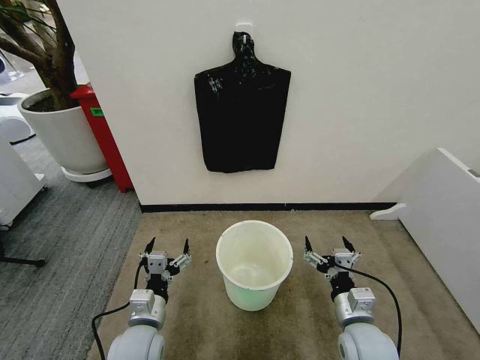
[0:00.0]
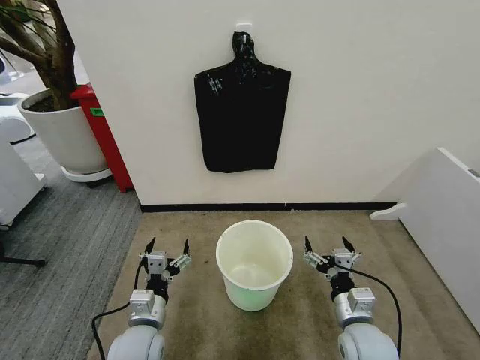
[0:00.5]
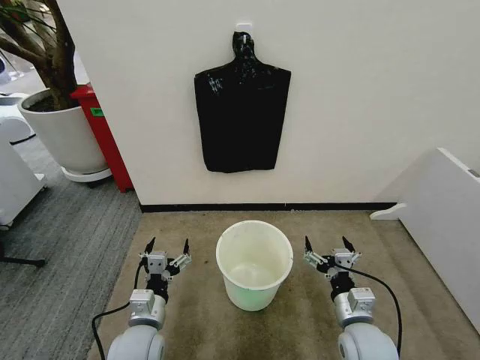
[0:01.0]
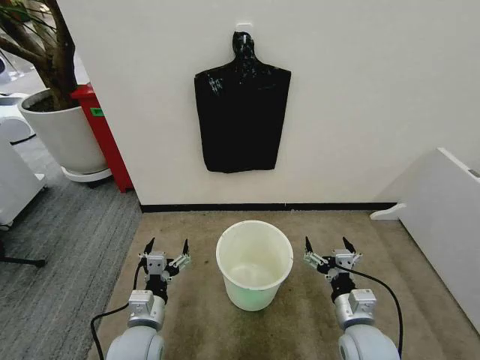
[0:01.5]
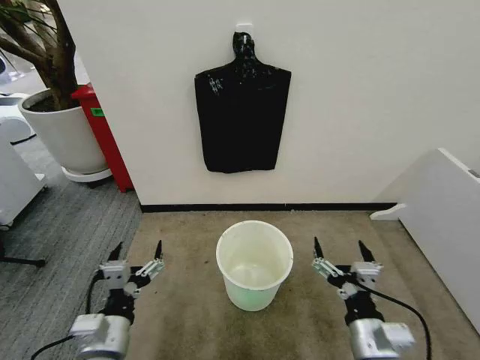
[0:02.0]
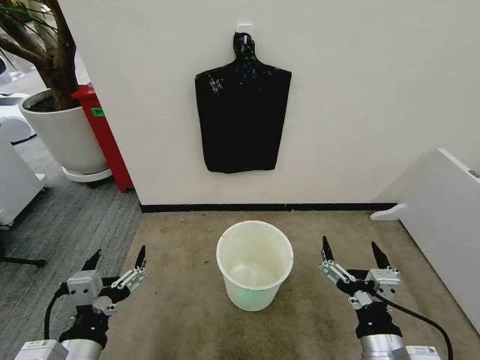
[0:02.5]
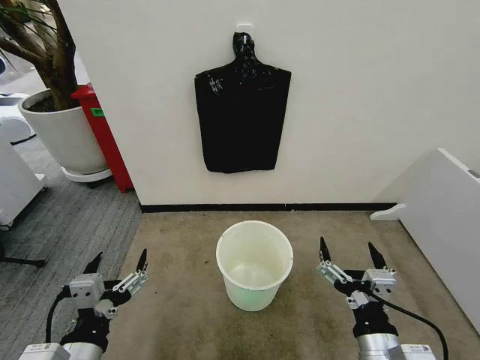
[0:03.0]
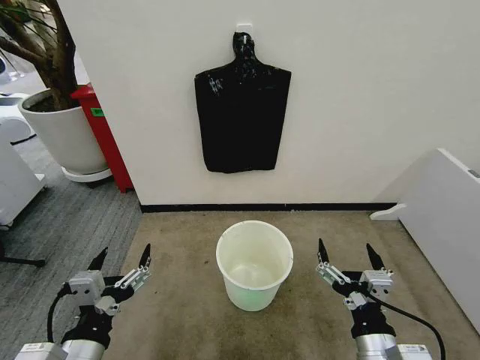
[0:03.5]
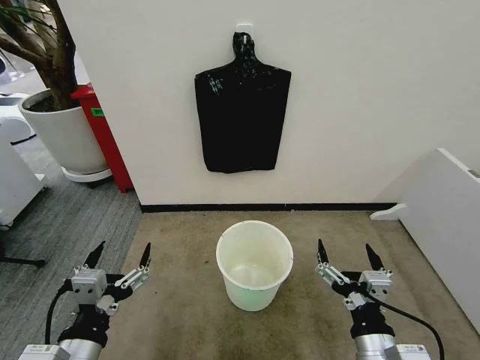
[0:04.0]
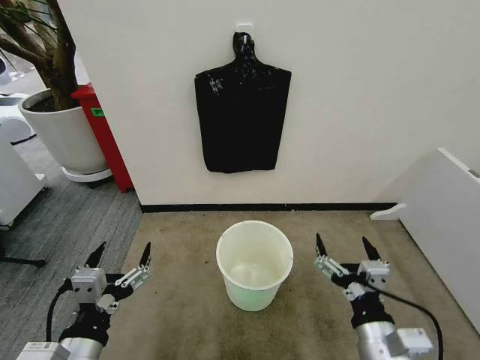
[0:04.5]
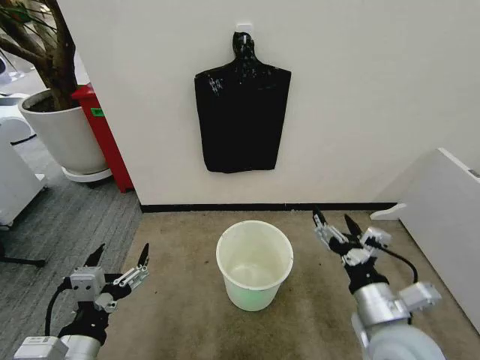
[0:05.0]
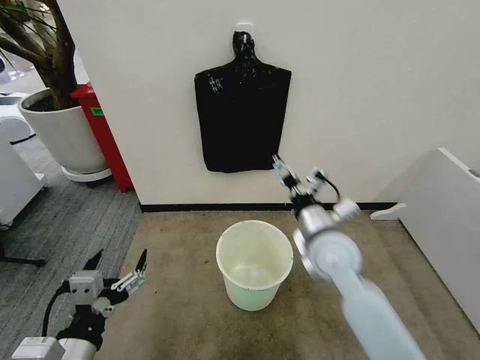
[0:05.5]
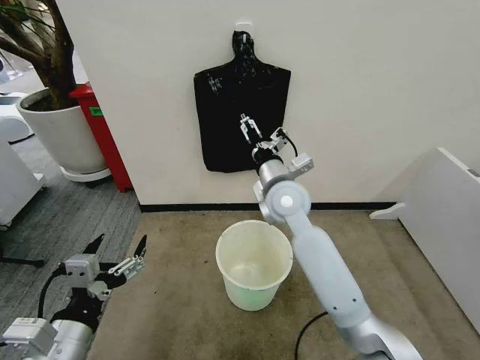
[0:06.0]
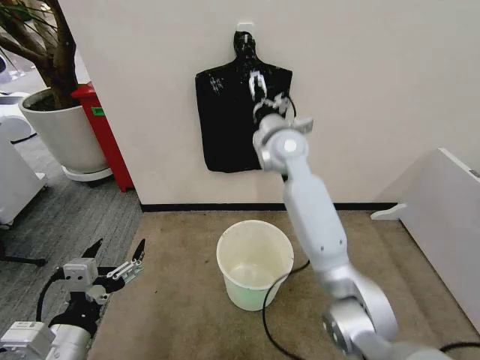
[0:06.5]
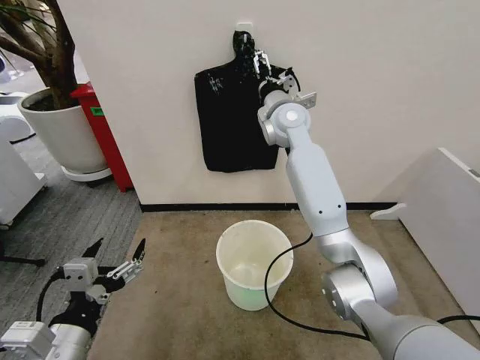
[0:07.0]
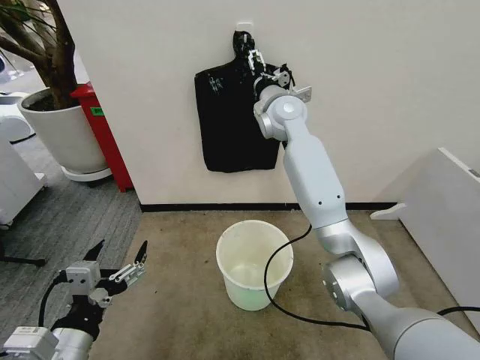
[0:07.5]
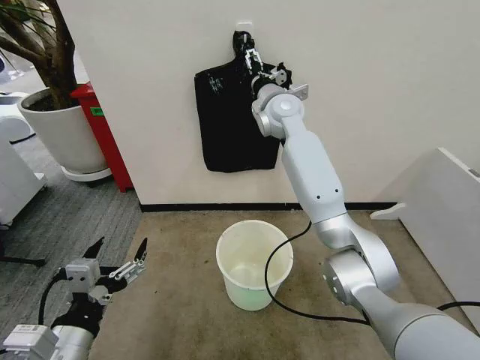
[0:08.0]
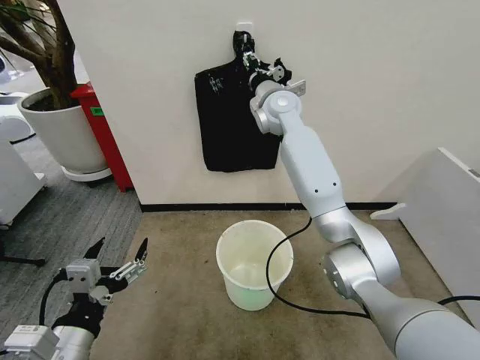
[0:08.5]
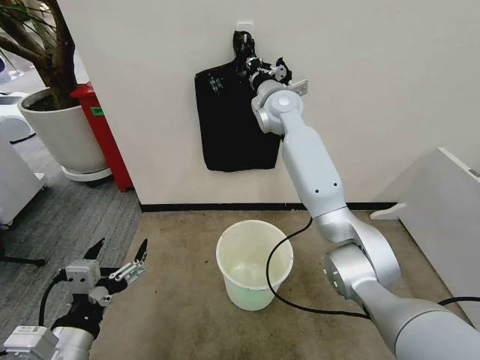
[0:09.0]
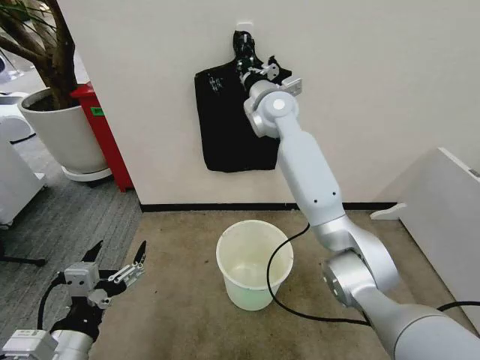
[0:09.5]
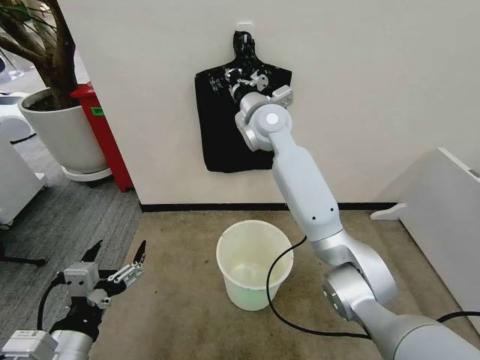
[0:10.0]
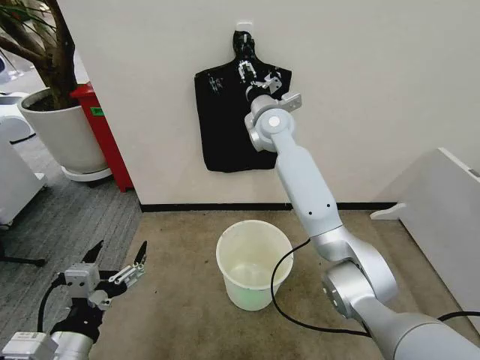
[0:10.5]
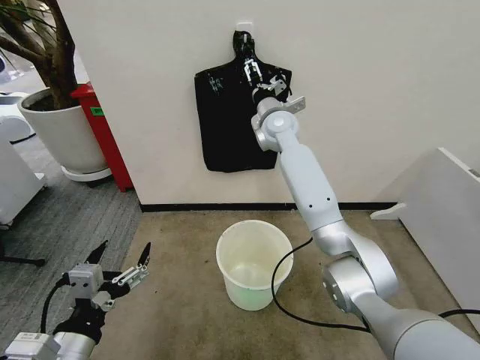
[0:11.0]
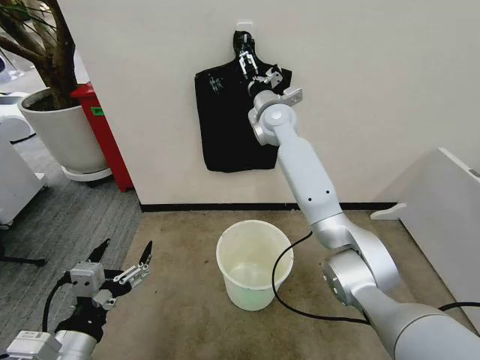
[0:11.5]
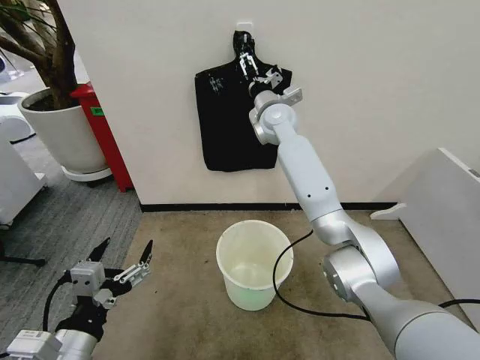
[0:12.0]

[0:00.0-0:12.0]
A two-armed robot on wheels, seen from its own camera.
Task of the whole recording: Place the garbage bag over the trash bin.
0:02.0 to 0:04.0: The left gripper shifts roughly 5 cm upward.
0:04.0 to 0:06.0: The right gripper heads forward, covering roughly 35 cm.
0:06.0 to 0:08.0: The right gripper shifts roughly 20 cm forward and upward.
0:08.0 to 0:10.0: The right gripper changes place by some 5 cm, and closes up.
0:10.0 to 0:12.0: The right gripper shifts approximately 5 cm forward, and opens up.

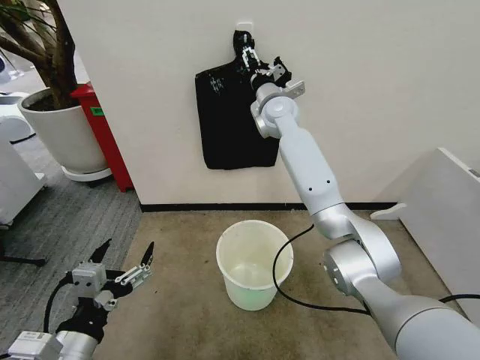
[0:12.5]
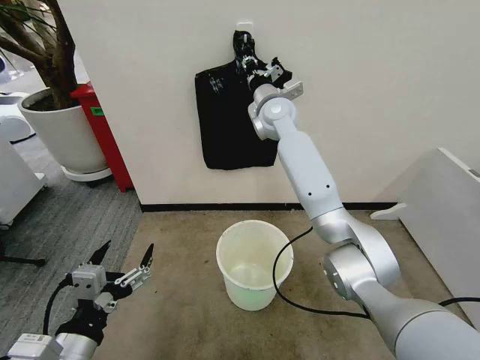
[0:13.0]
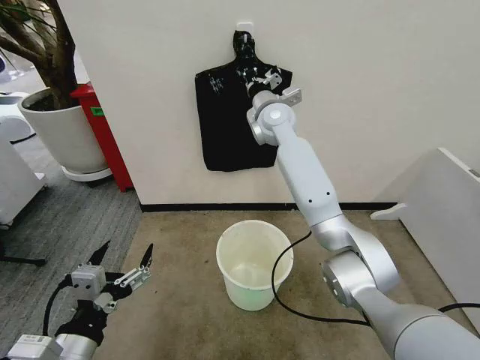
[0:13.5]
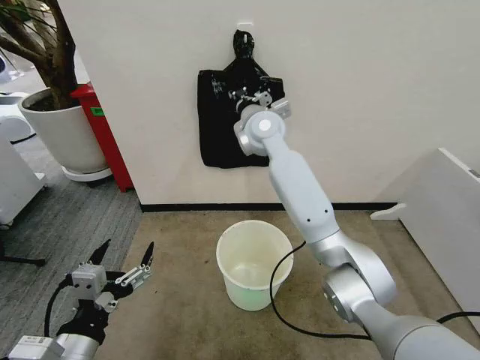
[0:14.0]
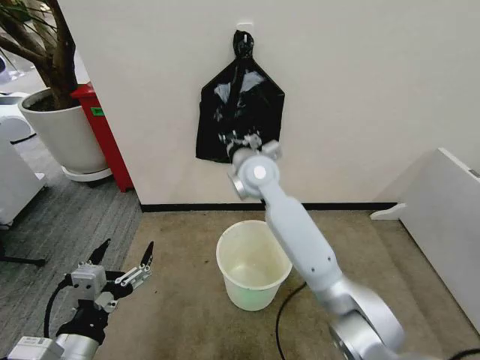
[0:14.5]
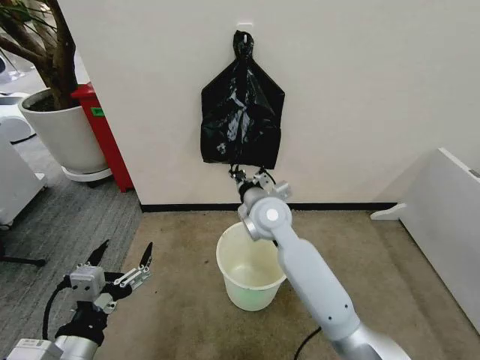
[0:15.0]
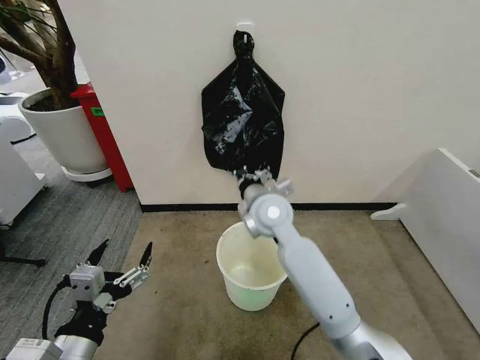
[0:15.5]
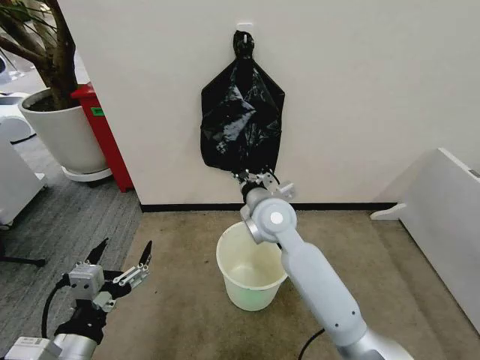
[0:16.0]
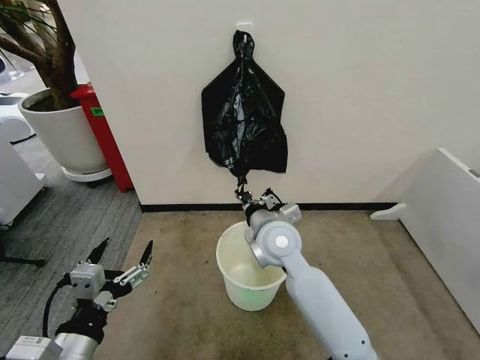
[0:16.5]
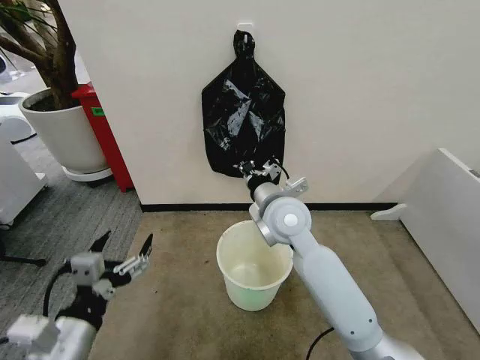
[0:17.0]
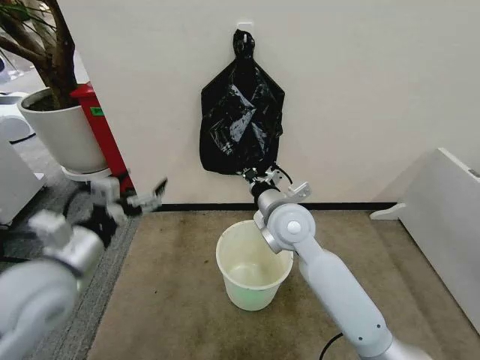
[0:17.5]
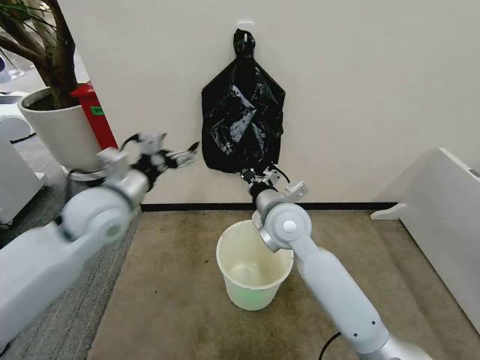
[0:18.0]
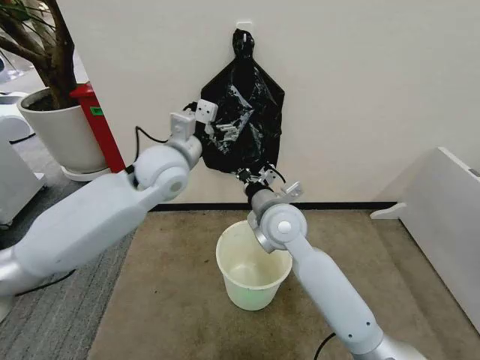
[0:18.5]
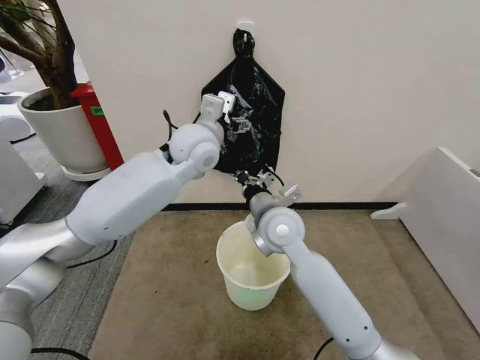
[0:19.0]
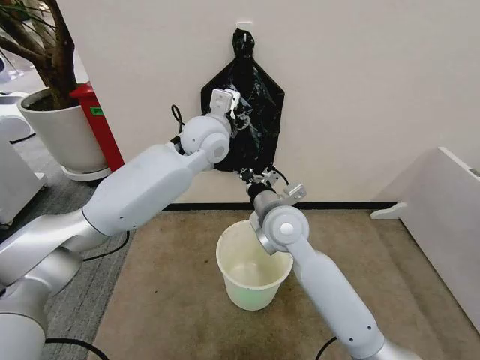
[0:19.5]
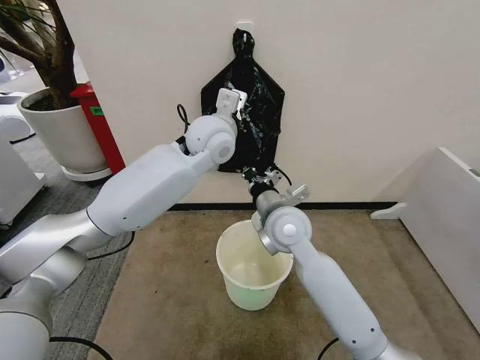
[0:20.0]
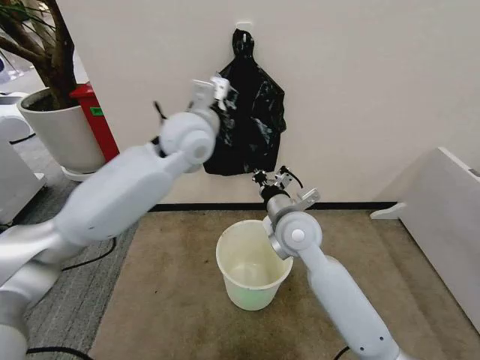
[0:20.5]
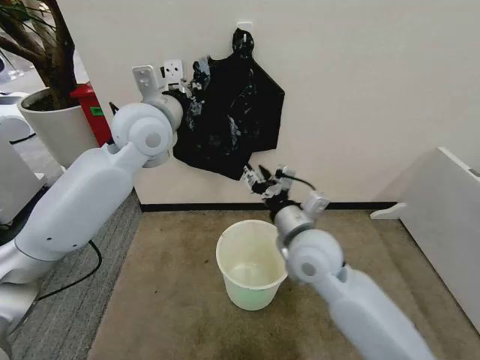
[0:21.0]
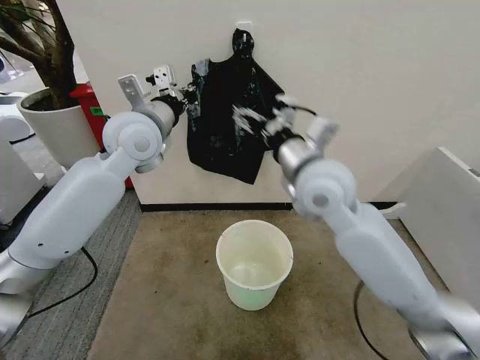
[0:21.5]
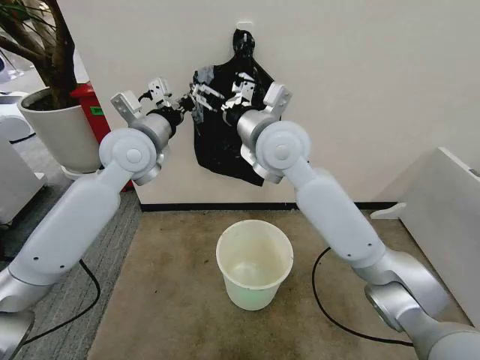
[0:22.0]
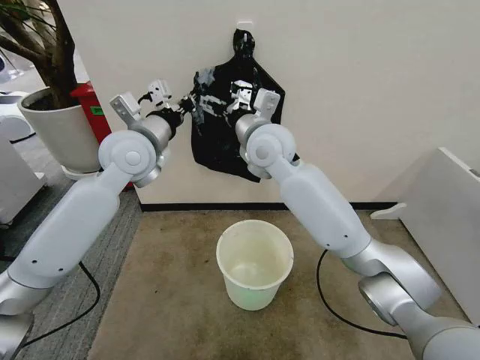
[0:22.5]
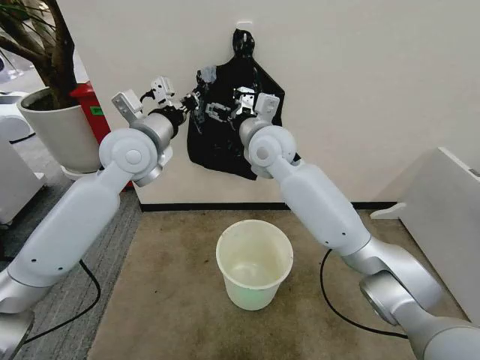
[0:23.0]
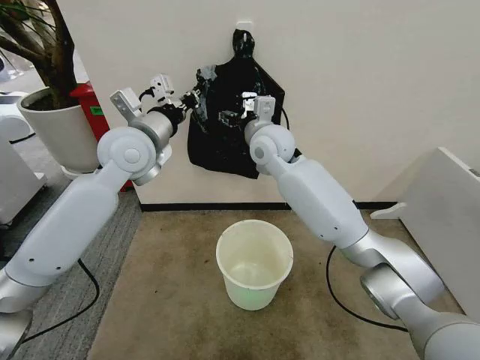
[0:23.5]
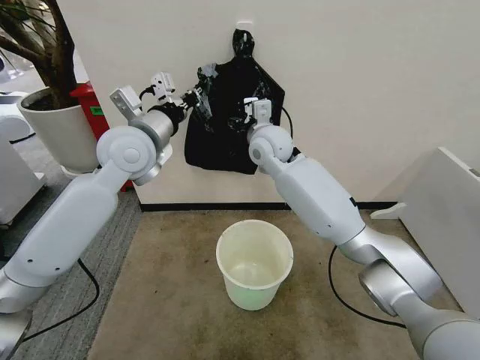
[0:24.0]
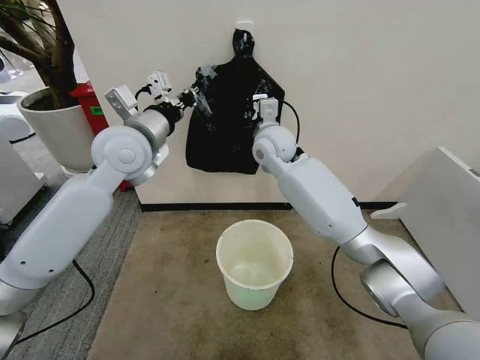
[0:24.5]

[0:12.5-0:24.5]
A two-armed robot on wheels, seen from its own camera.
Task of the whole recording: Place the garbage bag over the trash bin.
0:12.5 to 0:14.5: The right gripper heads backward, downward and to the left, covering some 15 cm, and closes up.
0:14.5 to 0:16.5: The right gripper is displaced backward and downward by approximately 15 cm.
0:16.5 to 0:18.5: The left gripper moves forward and upward, roughly 35 cm.
0:18.5 to 0:20.5: The left gripper travels upward by roughly 5 cm, and closes its fingers.
0:20.5 to 0:22.5: The right gripper goes approximately 20 cm upward, forward and to the left, and opens; the left gripper travels to the left by about 10 cm.
0:22.5 to 0:24.5: The right gripper heads forward, covering about 5 cm, and closes.

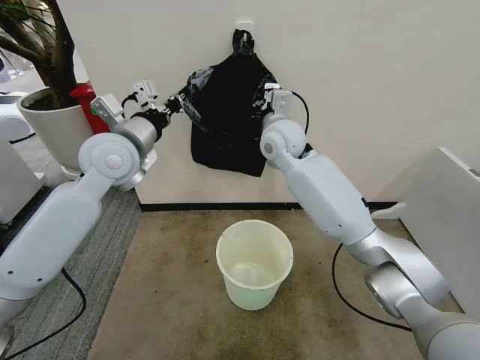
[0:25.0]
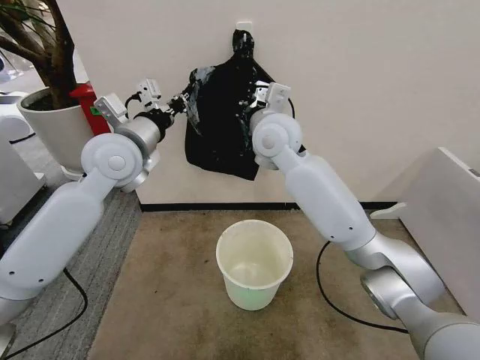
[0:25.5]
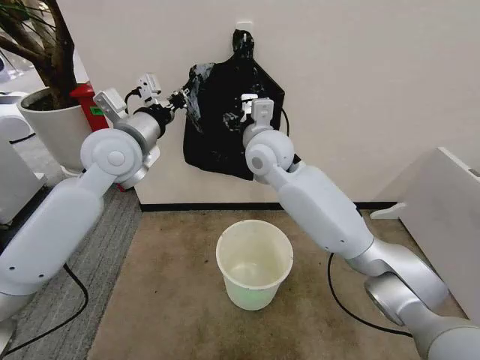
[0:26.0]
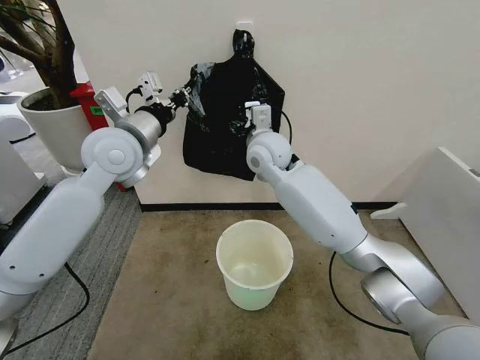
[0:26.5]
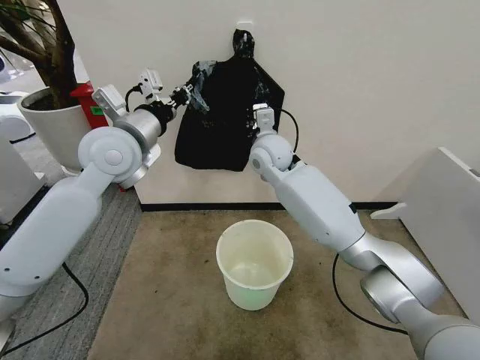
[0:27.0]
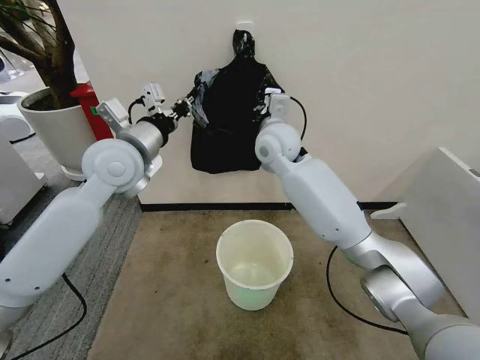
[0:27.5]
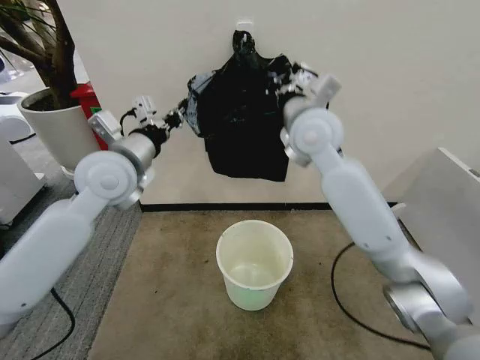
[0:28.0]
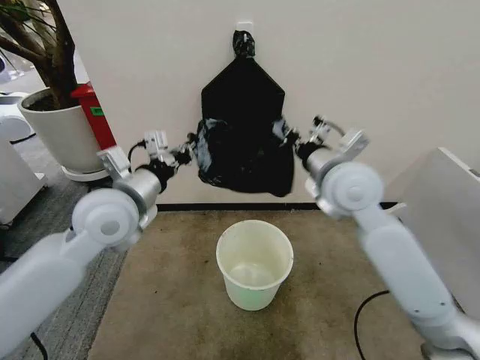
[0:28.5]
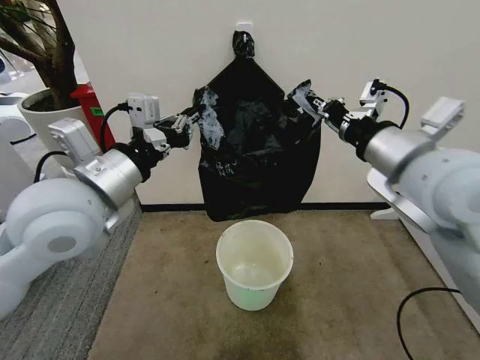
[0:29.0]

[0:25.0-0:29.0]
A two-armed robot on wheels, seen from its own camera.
Task of the whole recording: Place the garbage bag over the trash bin.
0:25.0 to 0:27.0: The right gripper opens, then closes once more.
0:27.0 to 0:29.0: The left gripper heads backward, covering approximately 15 cm. Meanwhile the right gripper shifts about 30 cm backward, to the right and upward.
